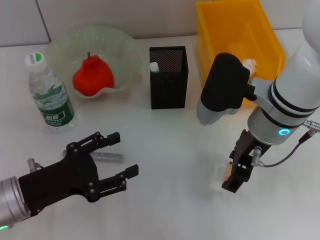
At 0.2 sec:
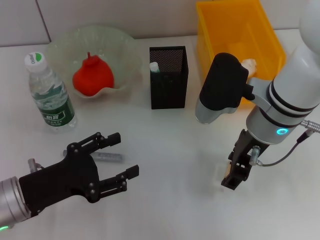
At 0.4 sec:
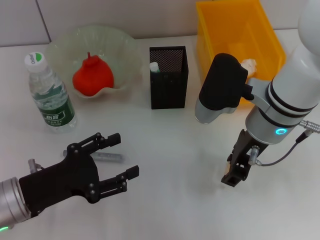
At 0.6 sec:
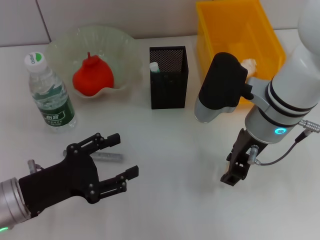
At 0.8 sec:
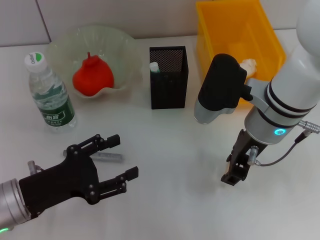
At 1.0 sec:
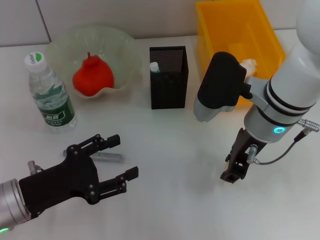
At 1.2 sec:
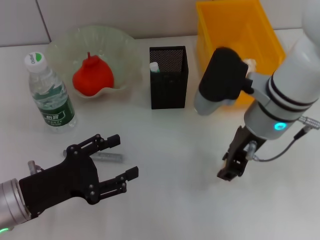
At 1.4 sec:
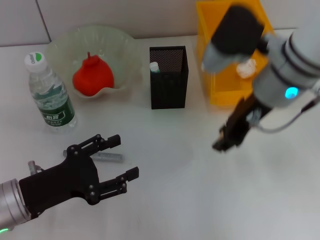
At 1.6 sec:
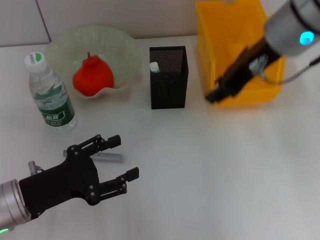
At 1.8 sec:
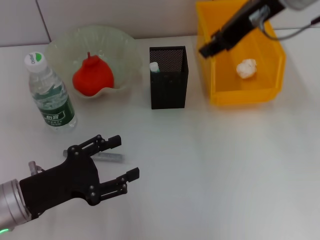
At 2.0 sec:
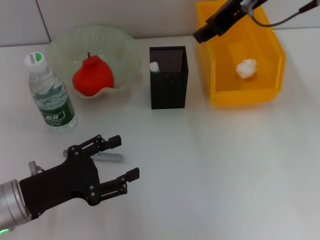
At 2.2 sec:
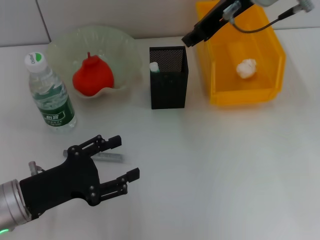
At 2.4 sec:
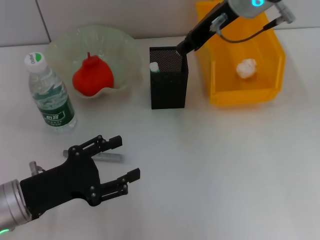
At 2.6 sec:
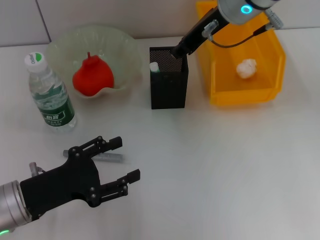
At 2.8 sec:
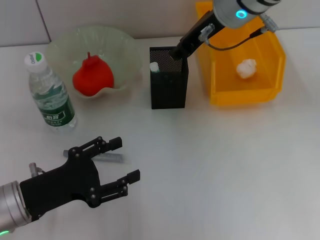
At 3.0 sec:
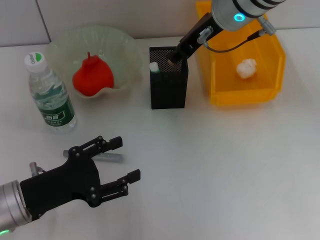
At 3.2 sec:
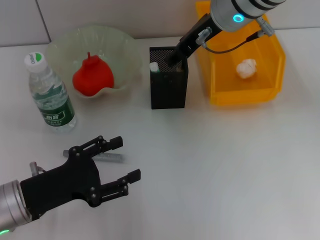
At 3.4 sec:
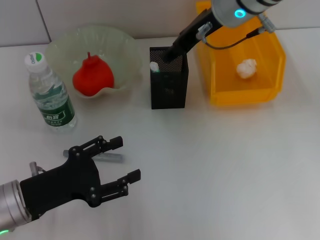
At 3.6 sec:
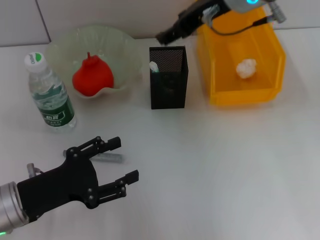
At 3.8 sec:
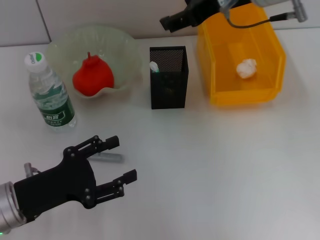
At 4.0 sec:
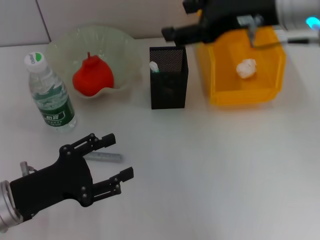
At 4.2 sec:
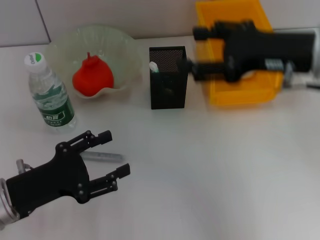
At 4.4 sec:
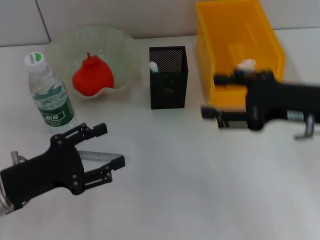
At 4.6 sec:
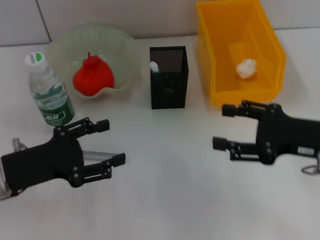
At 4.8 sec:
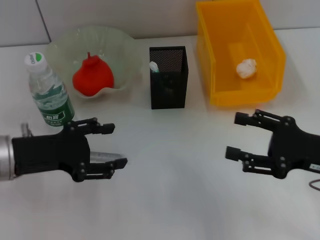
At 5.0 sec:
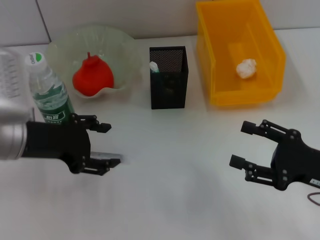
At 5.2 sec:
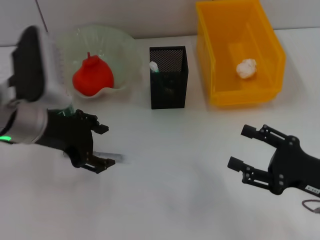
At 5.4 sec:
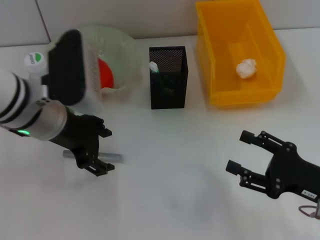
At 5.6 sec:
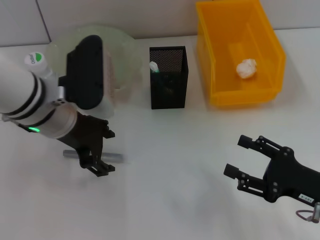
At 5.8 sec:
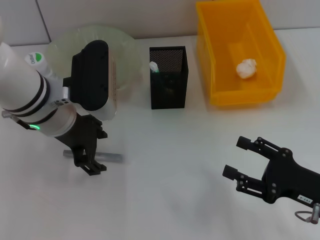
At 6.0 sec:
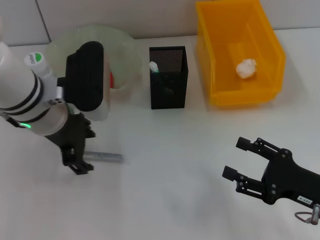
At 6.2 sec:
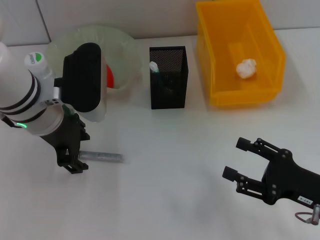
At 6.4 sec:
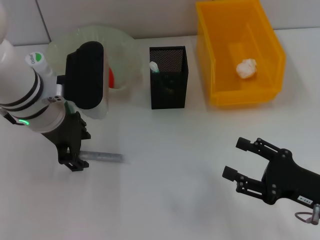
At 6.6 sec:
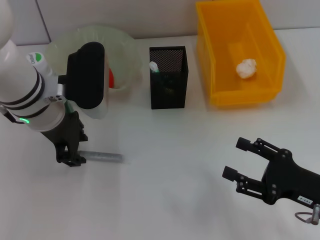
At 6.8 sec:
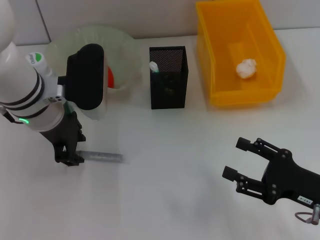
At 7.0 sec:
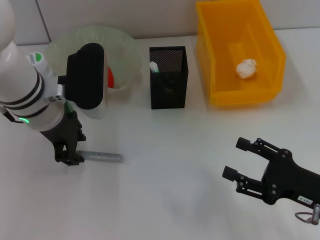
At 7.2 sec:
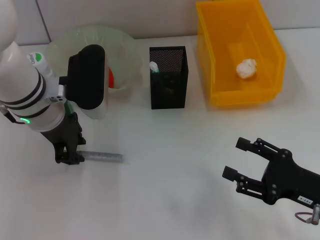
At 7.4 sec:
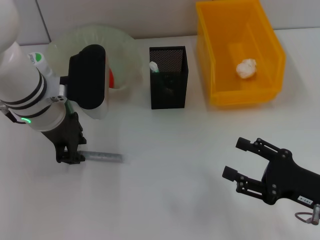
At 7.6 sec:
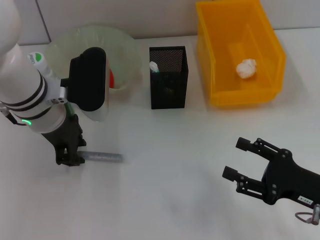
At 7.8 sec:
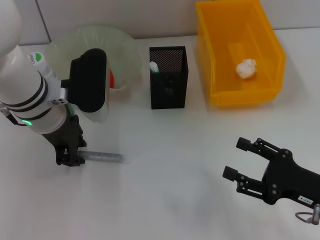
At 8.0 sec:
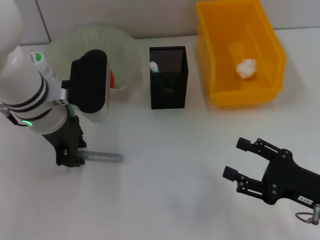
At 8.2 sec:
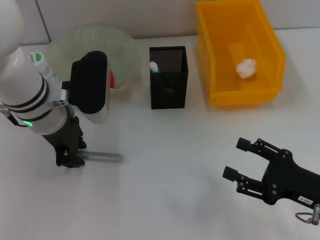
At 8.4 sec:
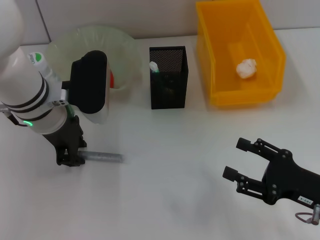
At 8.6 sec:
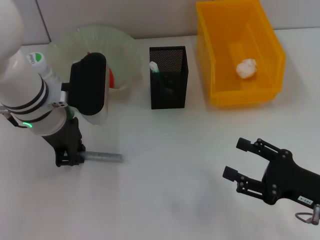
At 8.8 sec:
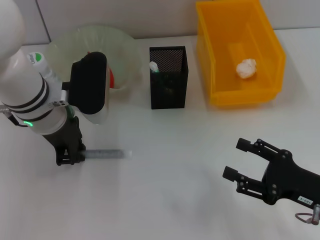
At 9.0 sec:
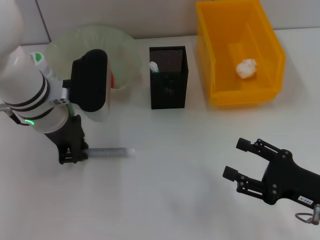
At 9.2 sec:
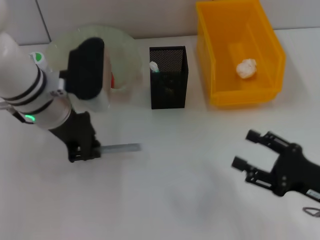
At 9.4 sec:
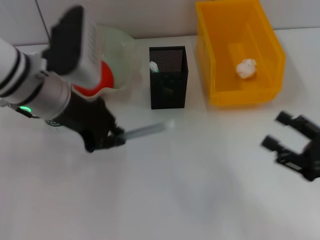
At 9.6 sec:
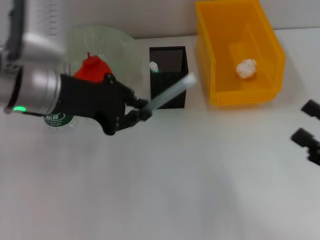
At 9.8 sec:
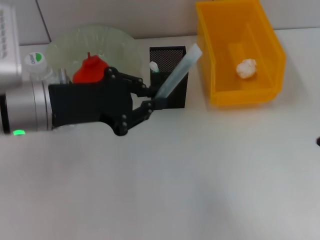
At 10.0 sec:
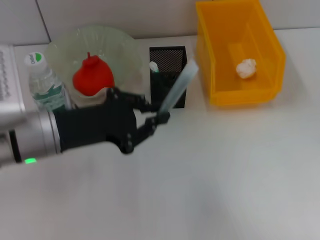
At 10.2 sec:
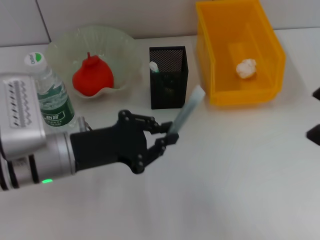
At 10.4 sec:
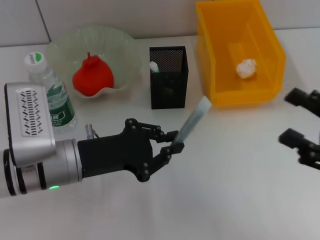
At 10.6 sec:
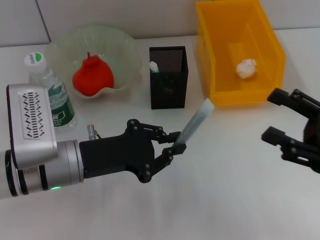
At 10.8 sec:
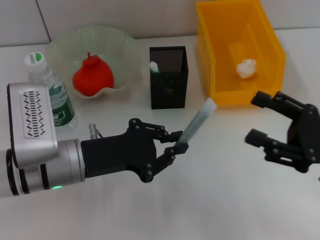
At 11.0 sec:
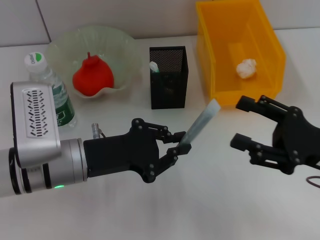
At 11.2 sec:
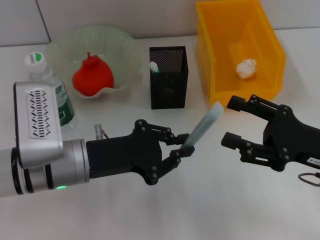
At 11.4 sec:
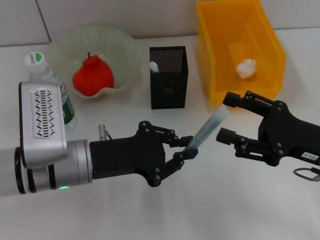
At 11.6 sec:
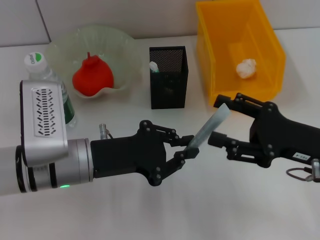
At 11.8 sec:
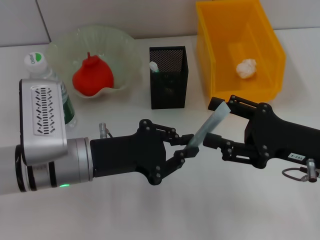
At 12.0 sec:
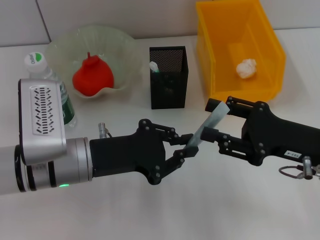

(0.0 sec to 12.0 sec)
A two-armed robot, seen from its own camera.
Step, 1.0 sec - 3.2 sec: Put the eraser into the pen holder with the right hand.
Step, 3.4 sec - 9.0 sec: Grab the gray glue with the left hand.
0.0 sec - 1.6 sec: The right gripper travels upward by roughly 10 cm, and closes its fingers.
1.6 sec - 3.0 sec: The right gripper heads forward, covering some 5 cm.
3.0 sec - 4.4 sec: The right gripper travels backward, to the right and downward by some 20 cm.
4.4 sec - 6.0 sec: The right gripper is displaced downward and backward by approximately 15 cm; the left gripper shifts about 20 cm forward, to the right and upward.
6.0 sec - 7.6 sec: The left gripper closes its fingers.
7.6 sec - 9.0 sec: Both grippers stay about where they are.
9.0 sec - 10.4 sec: The right gripper moves upward, roughly 5 cm, while the left gripper is displaced backward by some 10 cm.
10.4 sec - 12.0 sec: The right gripper heads to the left and forward, covering approximately 10 cm.

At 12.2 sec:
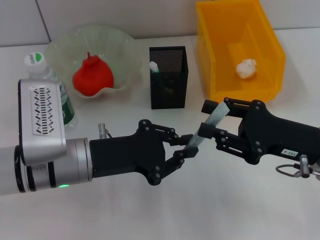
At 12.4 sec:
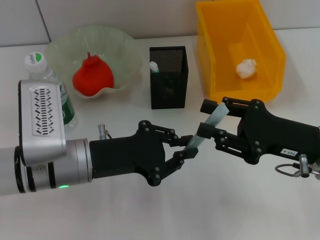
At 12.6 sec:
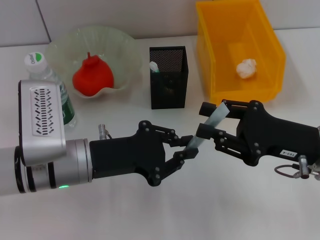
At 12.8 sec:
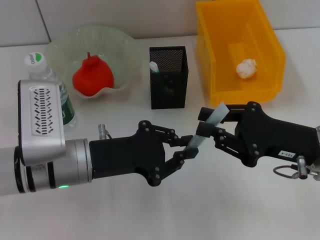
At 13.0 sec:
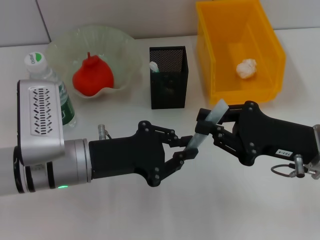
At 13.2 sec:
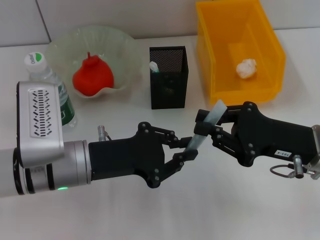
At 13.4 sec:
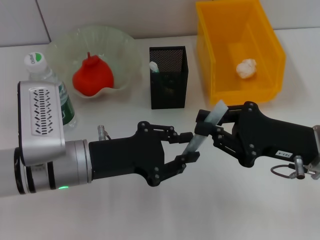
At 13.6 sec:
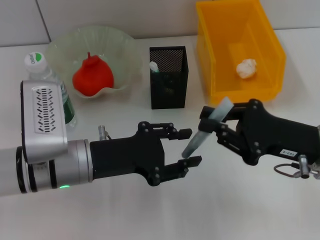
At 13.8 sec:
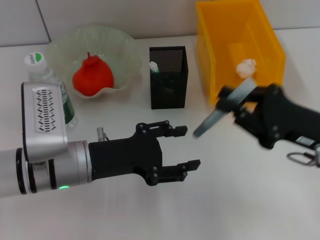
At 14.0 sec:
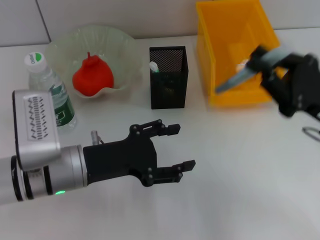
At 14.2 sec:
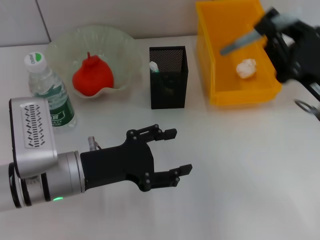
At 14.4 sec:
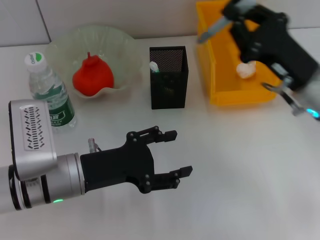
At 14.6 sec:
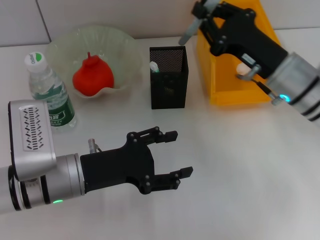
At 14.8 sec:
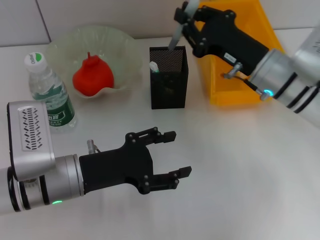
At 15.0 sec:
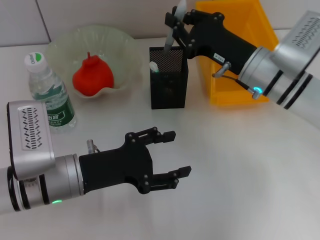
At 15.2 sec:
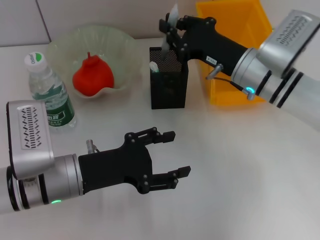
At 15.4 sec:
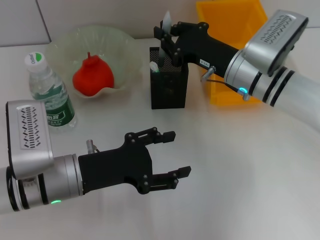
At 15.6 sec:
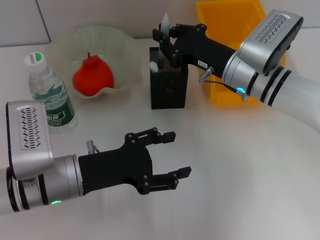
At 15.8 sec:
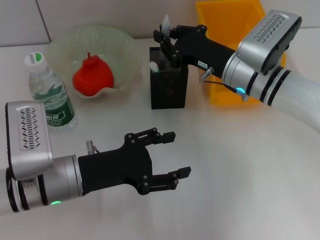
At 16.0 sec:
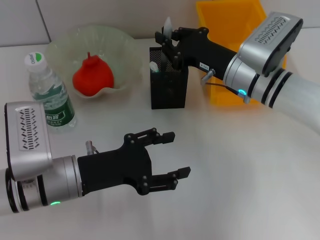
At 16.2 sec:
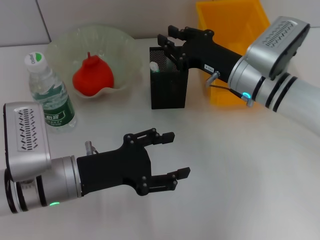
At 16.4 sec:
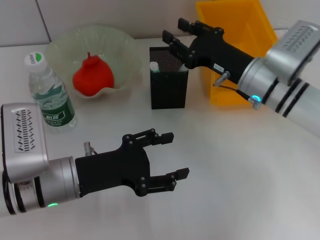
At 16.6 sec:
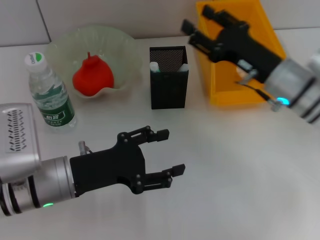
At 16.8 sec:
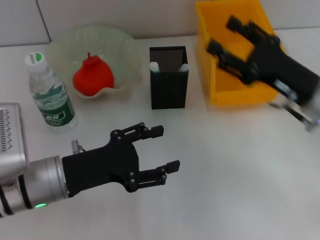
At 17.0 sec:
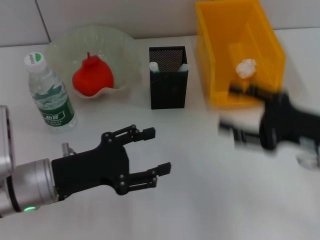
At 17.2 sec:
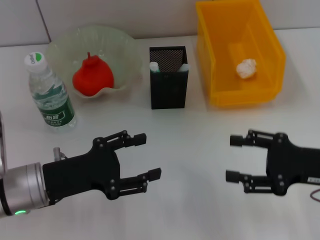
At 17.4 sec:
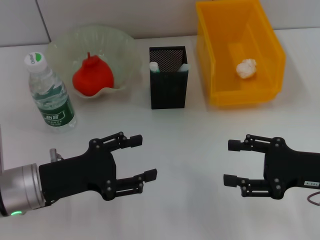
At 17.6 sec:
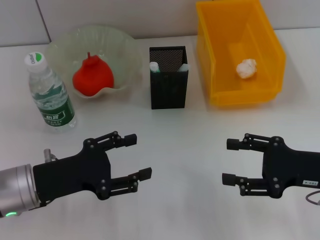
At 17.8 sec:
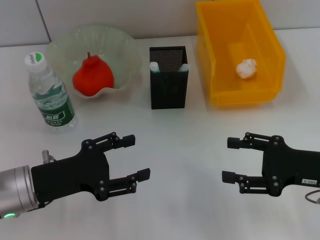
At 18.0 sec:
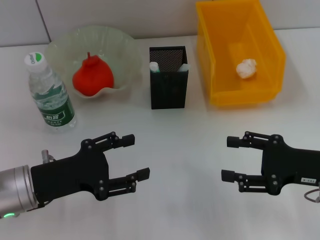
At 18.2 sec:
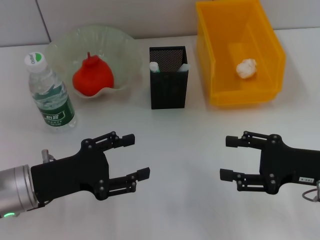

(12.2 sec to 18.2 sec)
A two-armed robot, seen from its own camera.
Step, 13.8 sec - 16.4 sec: Place the gray glue into the pen holder with the right hand.
12.2 sec - 13.8 sec: The left gripper opens its fingers, while the right gripper closes.
13.8 sec - 15.2 sec: The right gripper shifts about 15 cm forward and to the left. The left gripper opens.
15.2 sec - 16.6 sec: The right gripper opens its fingers.
16.6 sec - 18.2 sec: The right gripper moves backward and to the right, roughly 15 cm, and opens its fingers.
